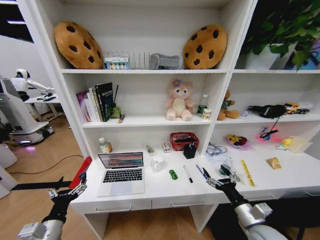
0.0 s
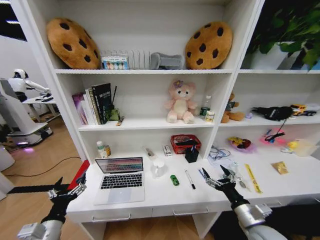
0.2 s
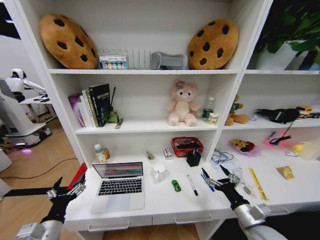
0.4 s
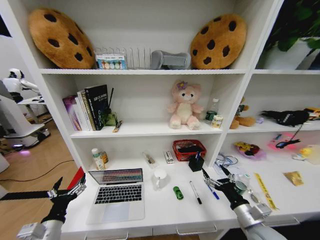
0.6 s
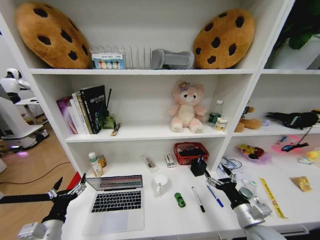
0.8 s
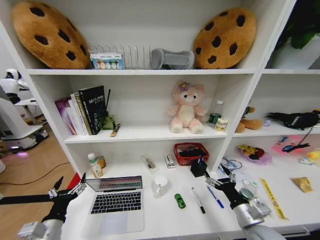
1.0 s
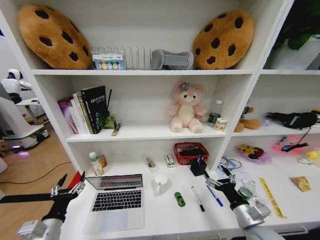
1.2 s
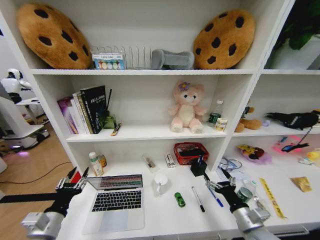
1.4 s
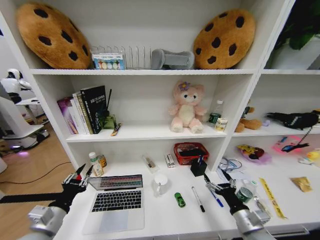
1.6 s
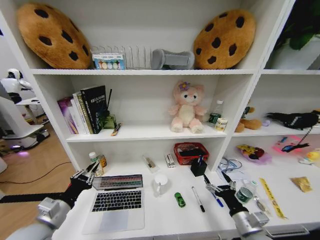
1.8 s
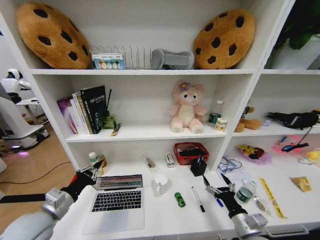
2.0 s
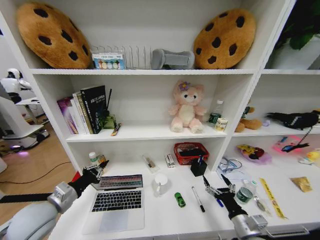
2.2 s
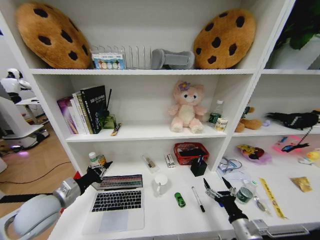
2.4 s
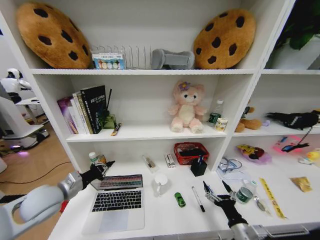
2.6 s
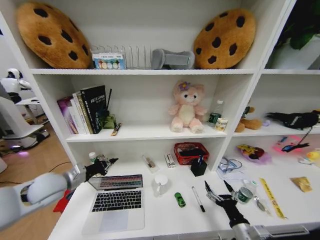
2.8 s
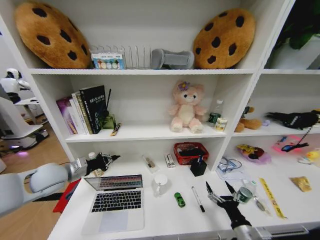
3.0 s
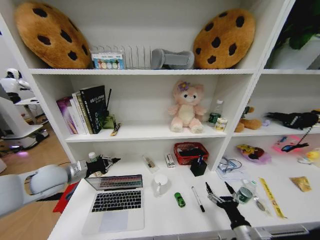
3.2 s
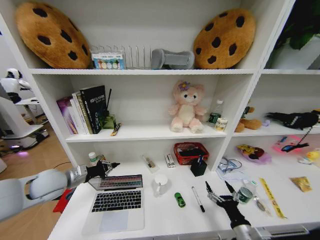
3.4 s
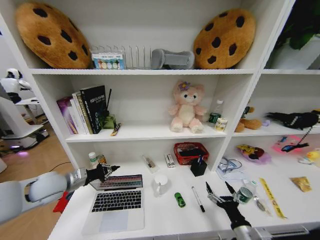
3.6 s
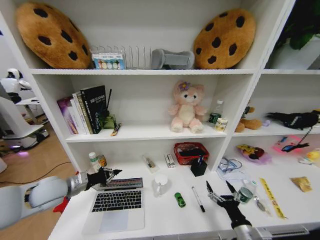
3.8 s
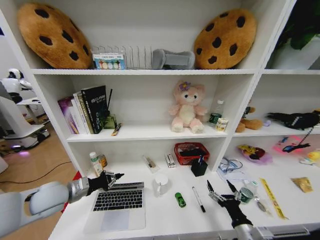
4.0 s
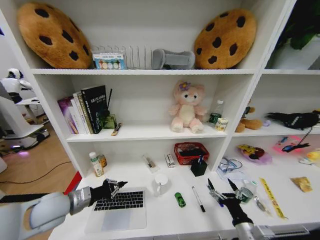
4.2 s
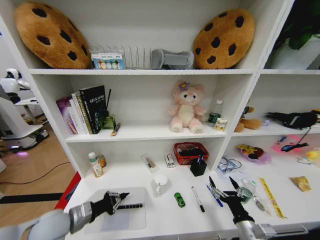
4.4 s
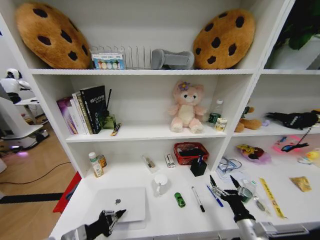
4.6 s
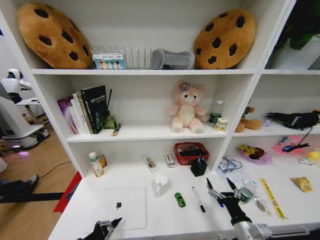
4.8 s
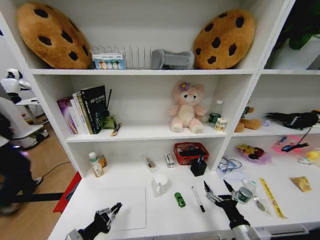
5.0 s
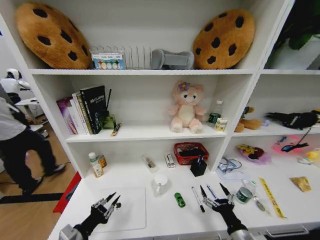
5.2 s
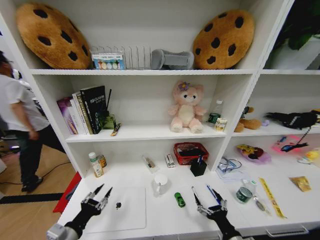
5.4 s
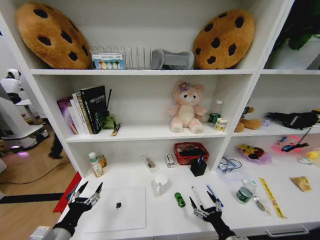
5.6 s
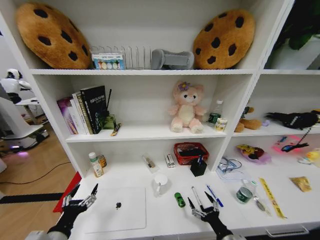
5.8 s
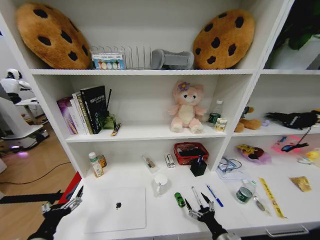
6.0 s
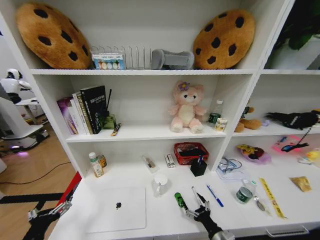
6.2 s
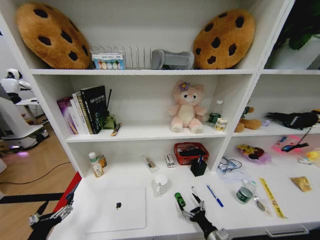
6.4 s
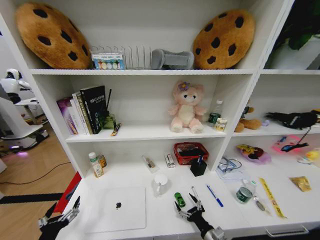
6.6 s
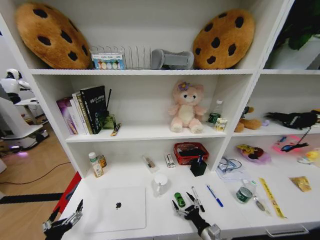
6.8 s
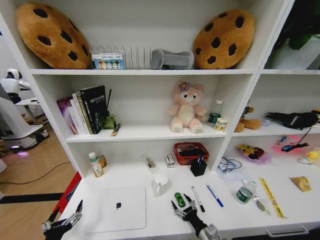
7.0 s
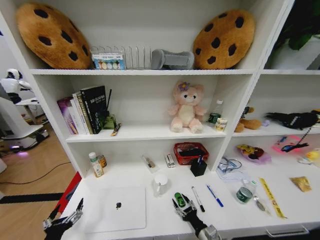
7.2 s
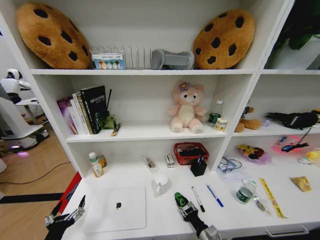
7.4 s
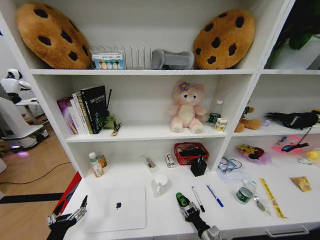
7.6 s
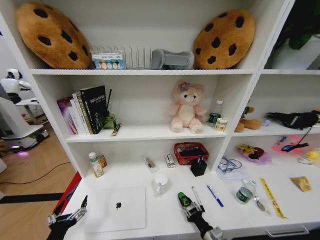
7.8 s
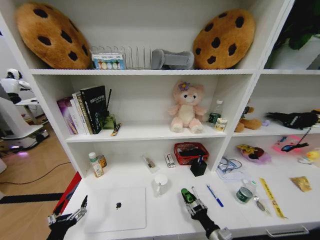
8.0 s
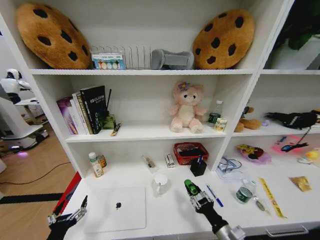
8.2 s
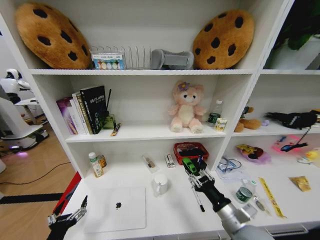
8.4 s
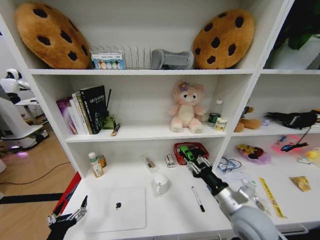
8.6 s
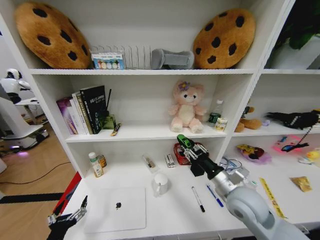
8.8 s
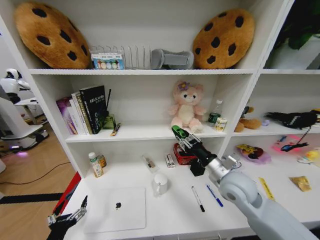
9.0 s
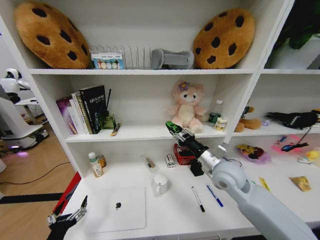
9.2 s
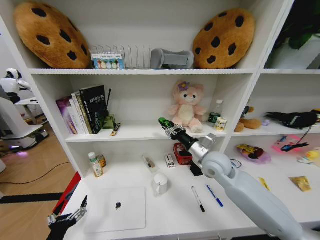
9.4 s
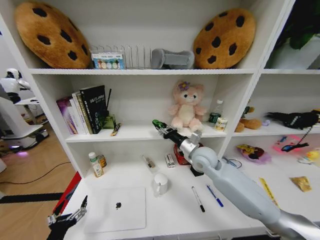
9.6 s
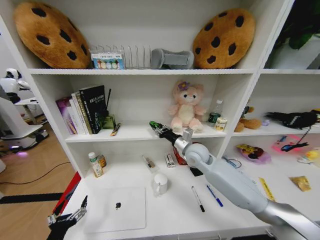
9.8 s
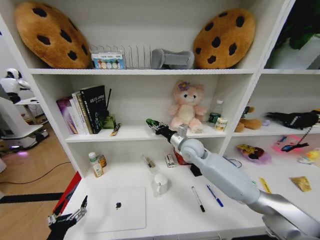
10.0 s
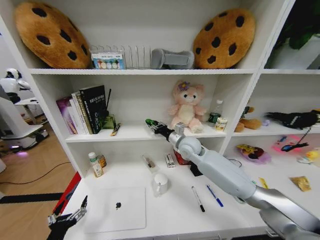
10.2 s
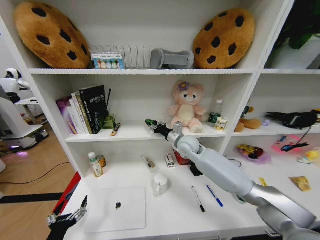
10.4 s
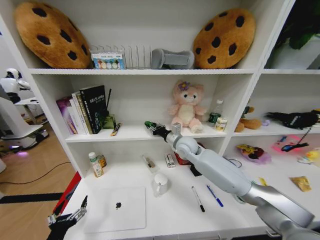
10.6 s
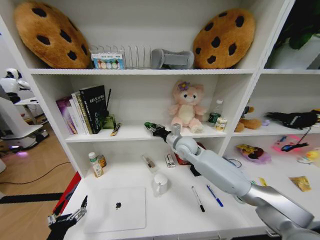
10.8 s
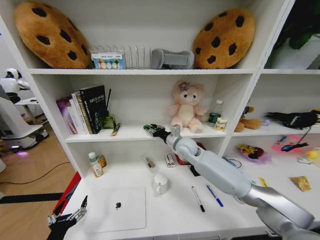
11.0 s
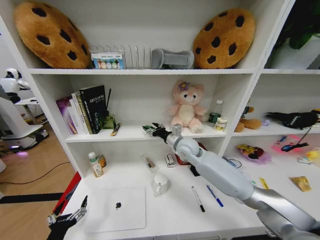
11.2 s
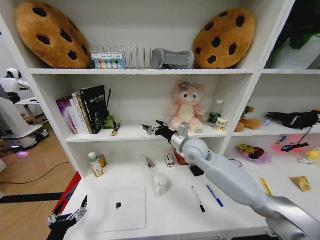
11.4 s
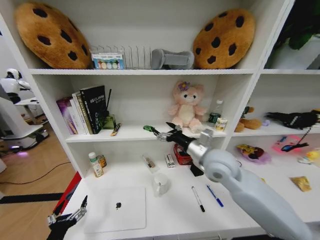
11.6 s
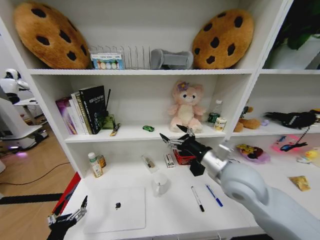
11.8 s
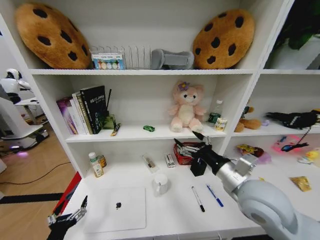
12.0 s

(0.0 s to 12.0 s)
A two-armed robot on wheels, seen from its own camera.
Task of the whole recording: Organize the objects on the table.
0.0 s - 1.6 s: The left gripper moves upward, about 5 cm, and closes up.
1.6 s - 3.0 s: The left gripper is displaced forward and upward by some 20 cm, and closes its fingers.
3.0 s - 4.4 s: The left gripper moves backward and downward, approximately 15 cm.
4.4 s - 6.0 s: The right gripper goes roughly 10 cm downward; the left gripper goes some 10 cm backward, and opens up.
6.0 s - 7.6 s: The right gripper shifts by some 5 cm, and closes up. The left gripper changes place by some 5 cm.
7.6 s - 9.0 s: The right gripper goes about 30 cm upward and forward.
9.0 s - 10.4 s: The right gripper travels forward and to the left by about 20 cm.
10.4 s - 12.0 s: The right gripper travels backward and to the right by about 25 cm, and opens its fingers.

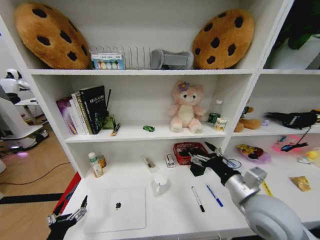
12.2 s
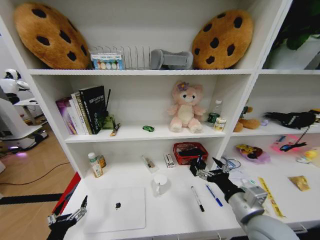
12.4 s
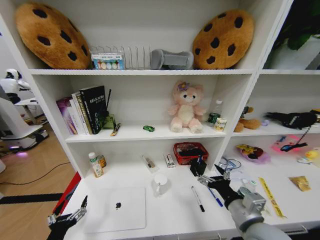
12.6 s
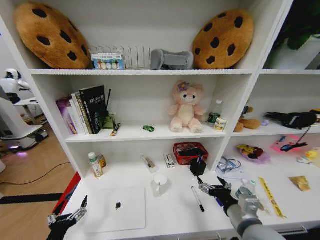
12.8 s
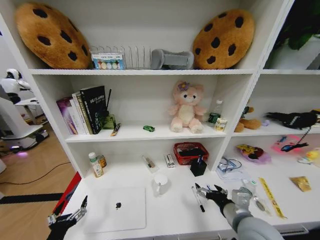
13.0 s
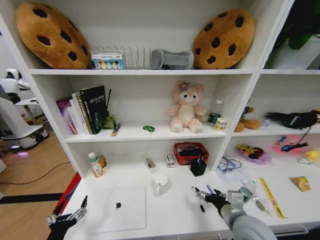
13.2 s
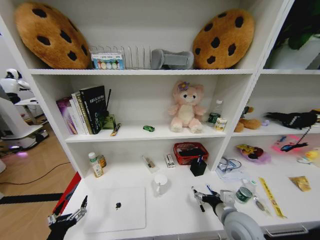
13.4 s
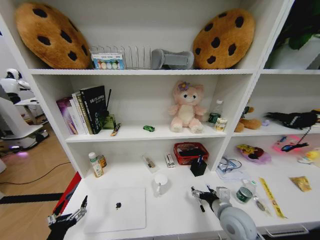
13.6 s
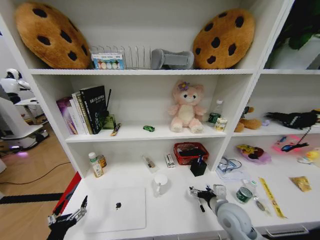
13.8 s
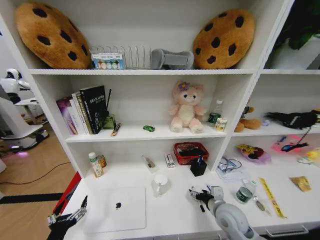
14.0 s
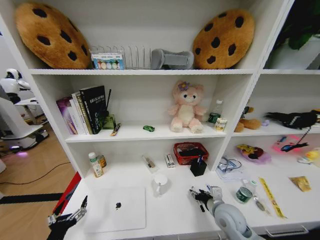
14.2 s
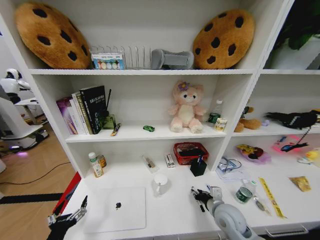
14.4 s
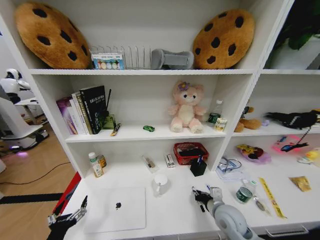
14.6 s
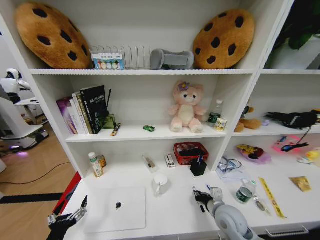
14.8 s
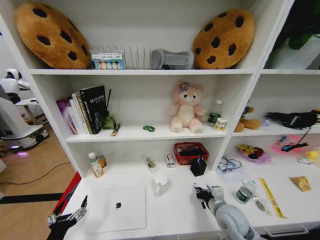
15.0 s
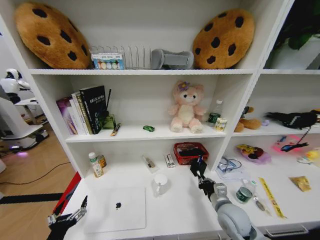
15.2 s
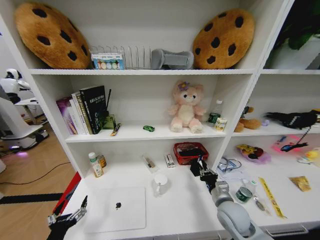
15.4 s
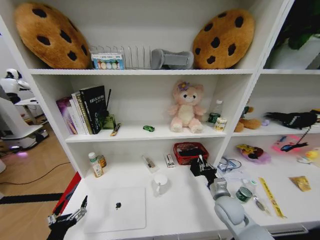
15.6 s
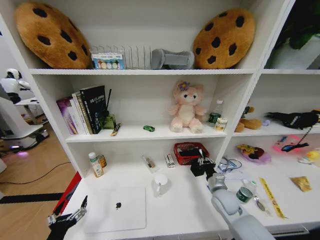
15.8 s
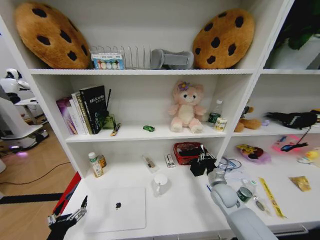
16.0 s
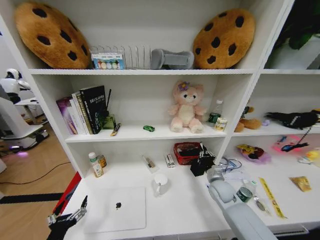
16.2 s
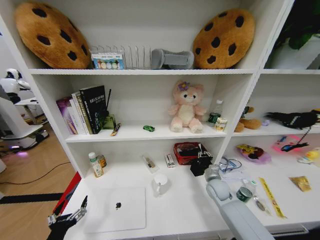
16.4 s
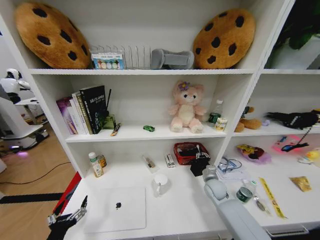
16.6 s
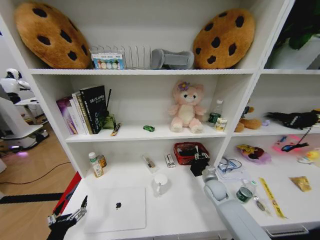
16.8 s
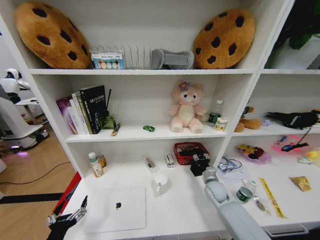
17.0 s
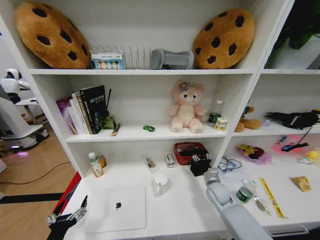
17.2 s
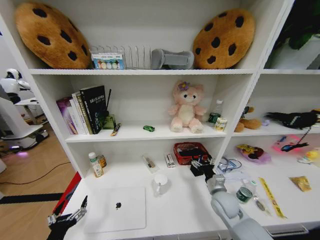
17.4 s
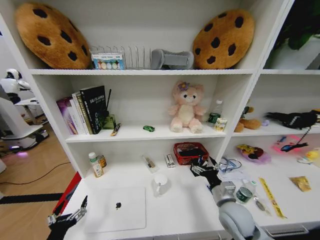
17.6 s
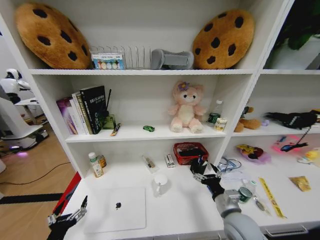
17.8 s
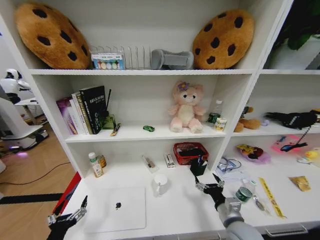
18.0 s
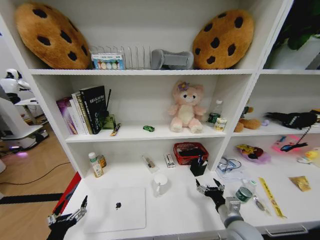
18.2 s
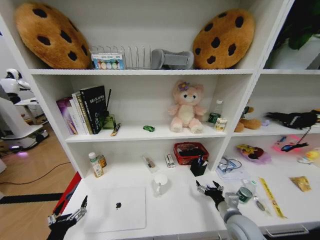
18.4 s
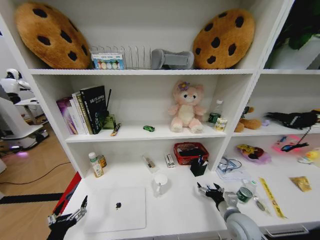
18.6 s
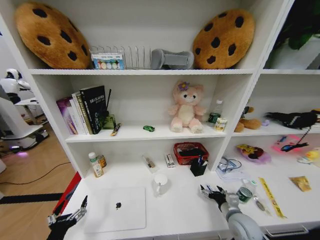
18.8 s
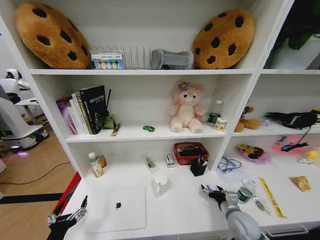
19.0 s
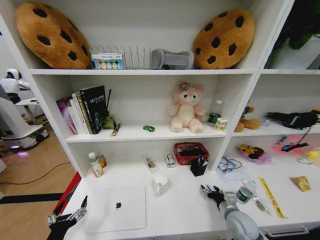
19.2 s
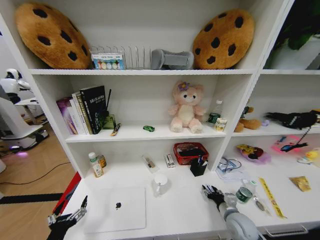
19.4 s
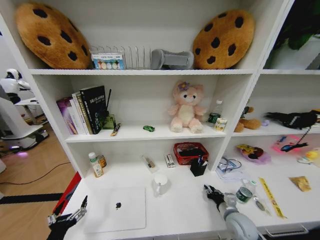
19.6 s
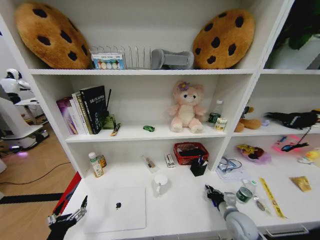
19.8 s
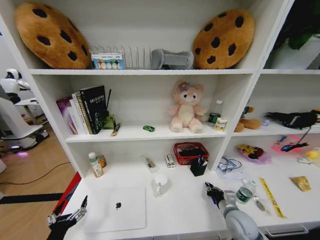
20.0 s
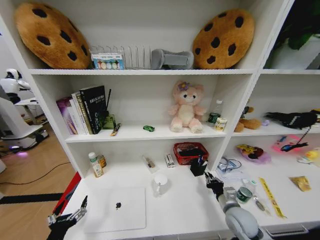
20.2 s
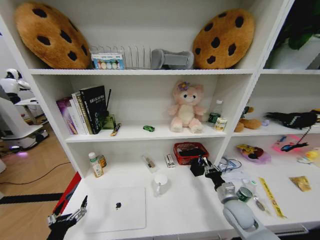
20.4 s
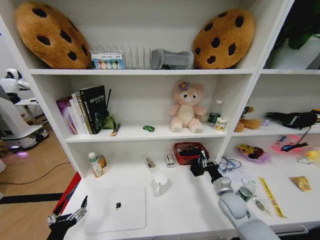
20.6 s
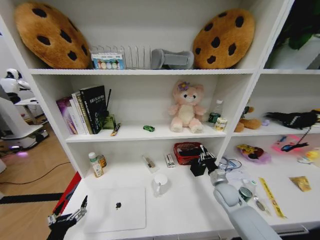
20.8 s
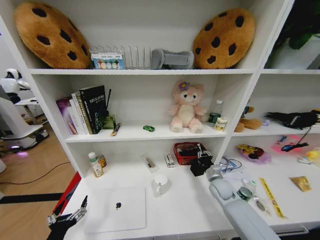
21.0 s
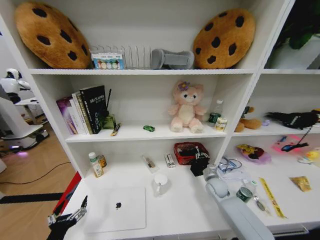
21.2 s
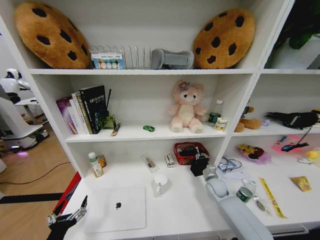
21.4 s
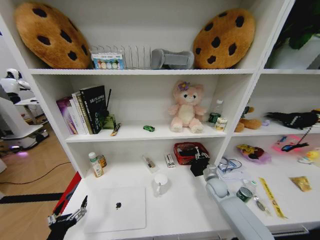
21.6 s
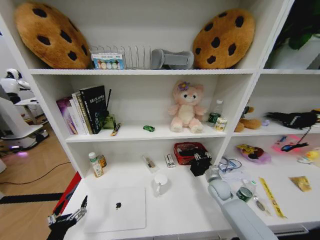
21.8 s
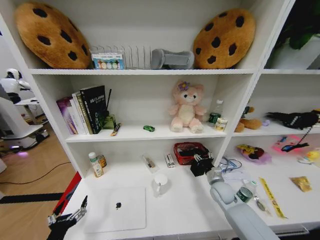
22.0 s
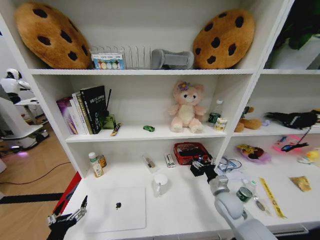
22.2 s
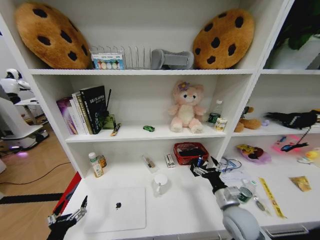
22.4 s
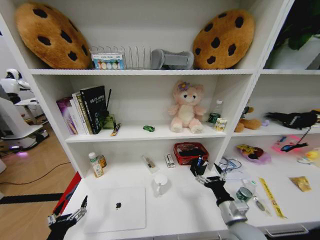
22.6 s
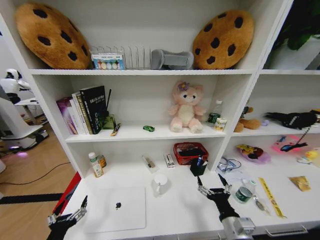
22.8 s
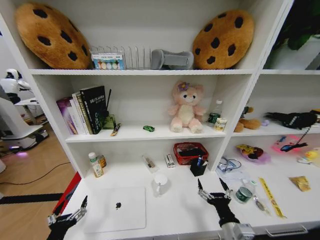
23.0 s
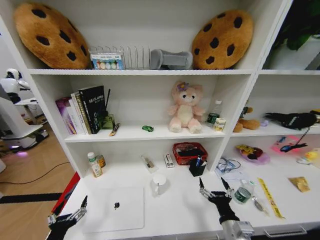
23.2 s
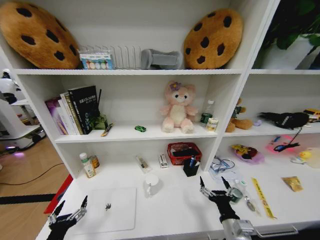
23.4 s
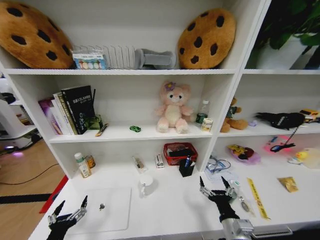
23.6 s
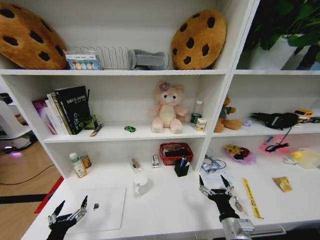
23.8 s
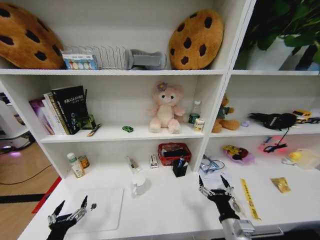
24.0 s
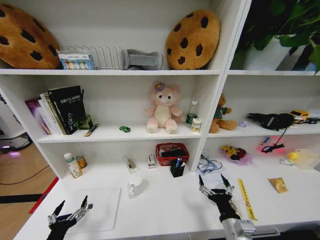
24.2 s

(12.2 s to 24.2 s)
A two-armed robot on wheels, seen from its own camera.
Task of the whole recording: Organize the objects on the table.
12.2 s - 13.8 s: The right gripper is displaced downward by about 15 cm.
13.8 s - 15.2 s: The right gripper closes up.
15.2 s - 16.6 s: The right gripper shifts about 15 cm forward and downward.
16.6 s - 18.2 s: The right gripper moves backward, roughly 20 cm, and opens.
18.2 s - 19.8 s: The right gripper heads downward, covering about 5 cm, and closes its fingers.
19.8 s - 21.2 s: The right gripper heads forward, covering roughly 15 cm.
21.2 s - 22.6 s: The right gripper goes some 25 cm backward and upward, and opens its fingers.
22.6 s - 24.2 s: The right gripper ends up approximately 5 cm from where it was.
